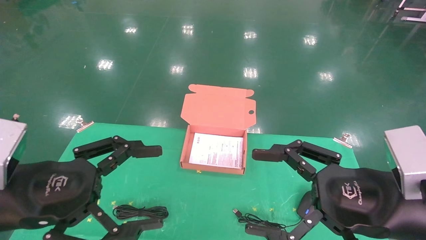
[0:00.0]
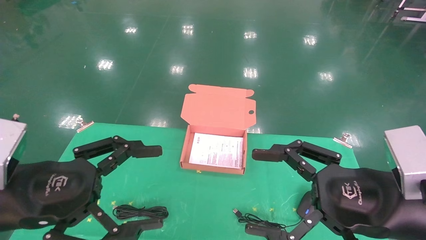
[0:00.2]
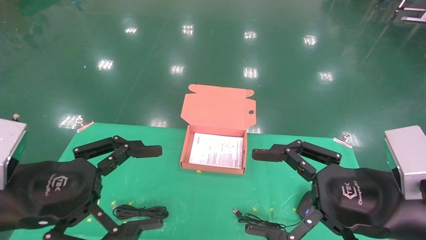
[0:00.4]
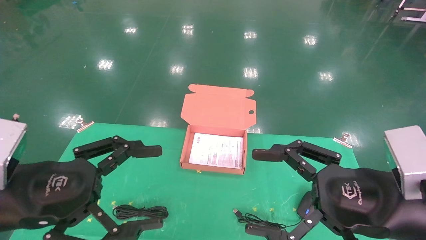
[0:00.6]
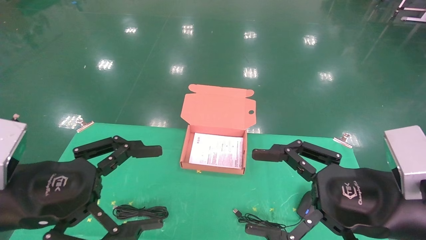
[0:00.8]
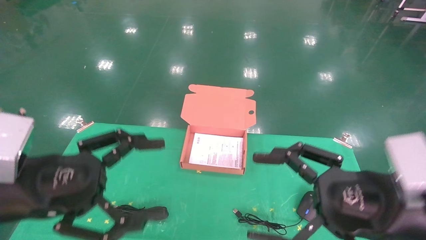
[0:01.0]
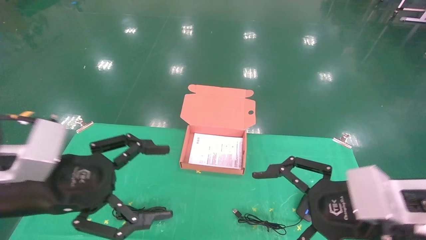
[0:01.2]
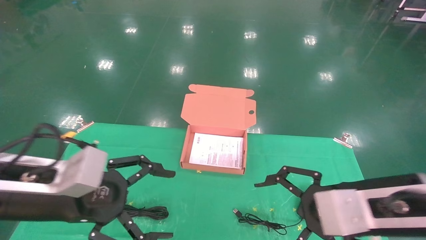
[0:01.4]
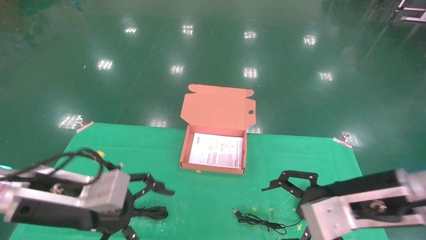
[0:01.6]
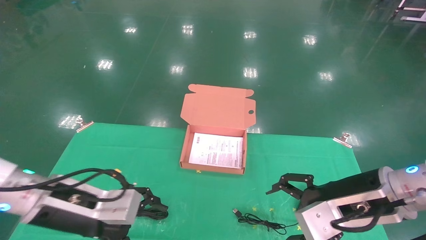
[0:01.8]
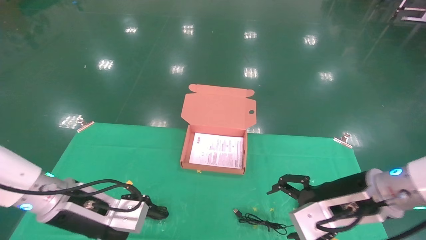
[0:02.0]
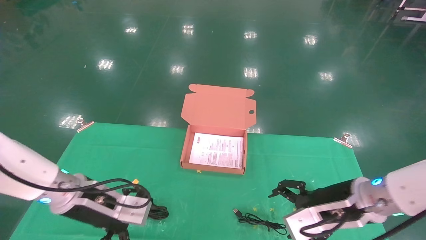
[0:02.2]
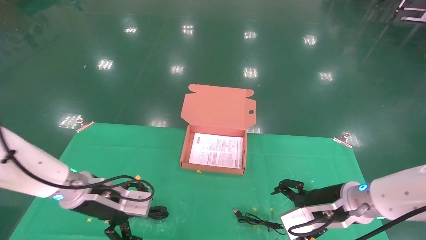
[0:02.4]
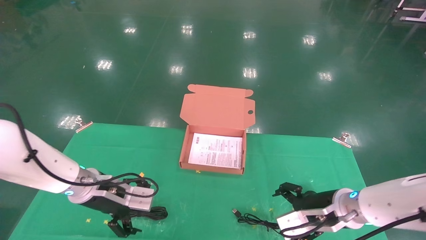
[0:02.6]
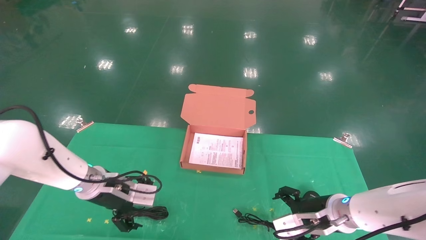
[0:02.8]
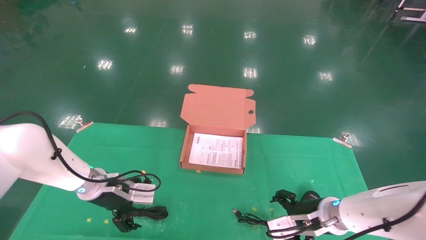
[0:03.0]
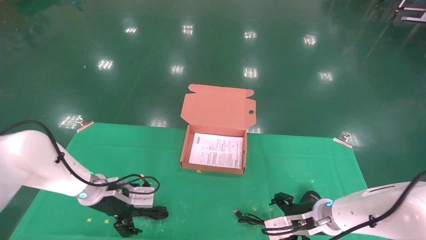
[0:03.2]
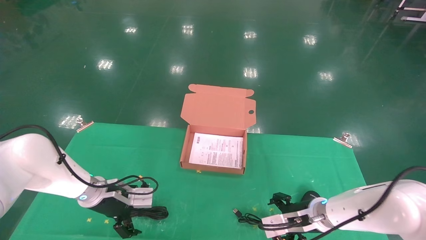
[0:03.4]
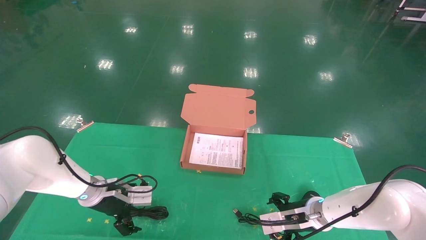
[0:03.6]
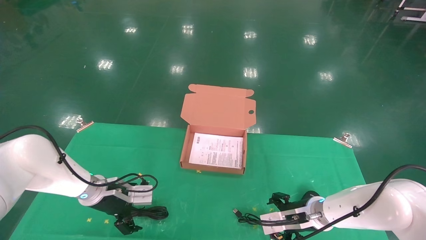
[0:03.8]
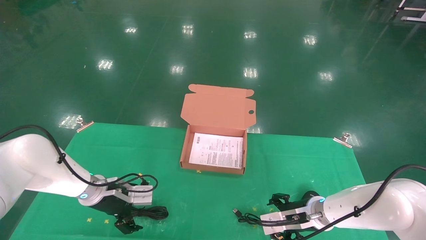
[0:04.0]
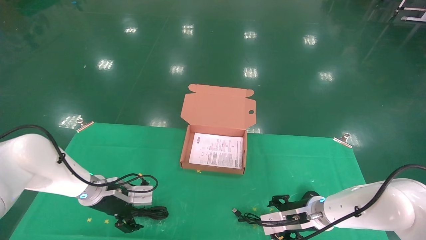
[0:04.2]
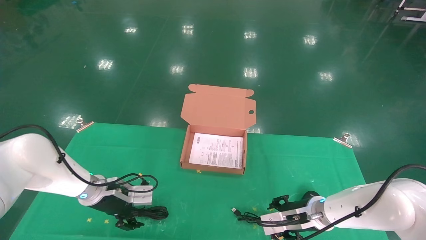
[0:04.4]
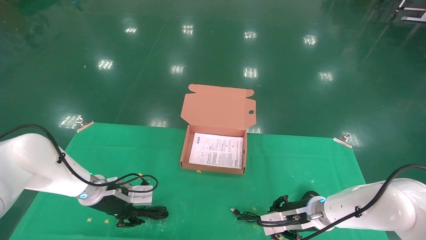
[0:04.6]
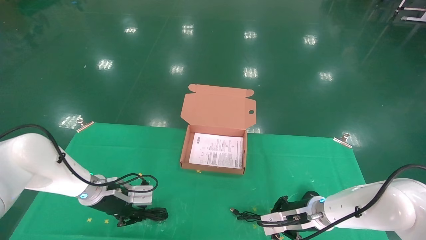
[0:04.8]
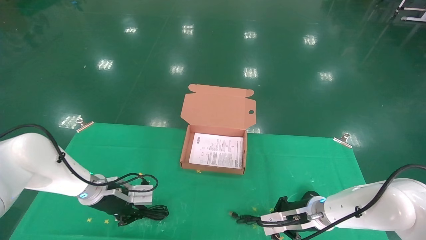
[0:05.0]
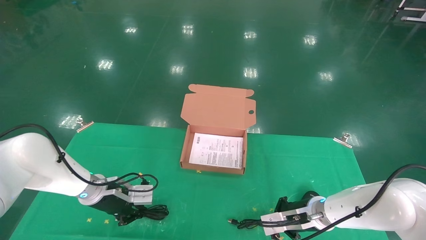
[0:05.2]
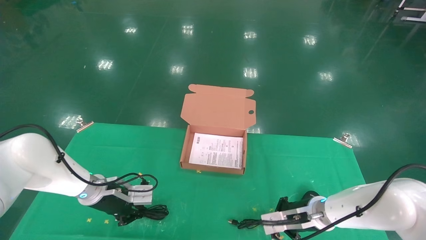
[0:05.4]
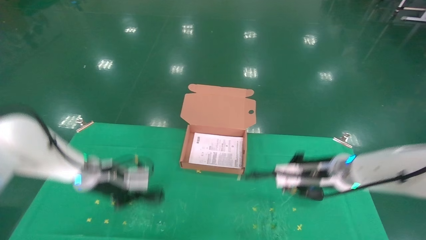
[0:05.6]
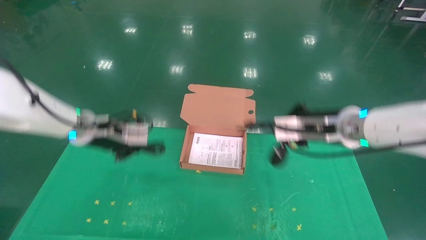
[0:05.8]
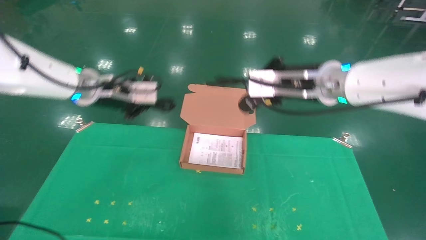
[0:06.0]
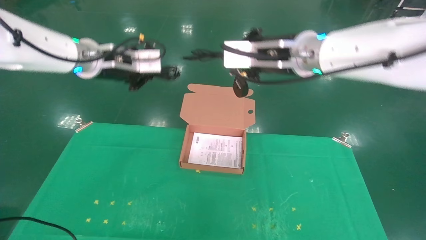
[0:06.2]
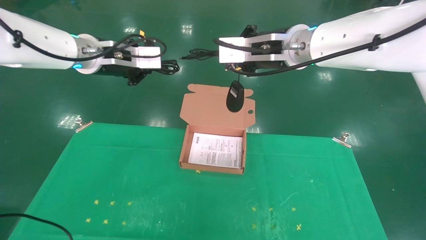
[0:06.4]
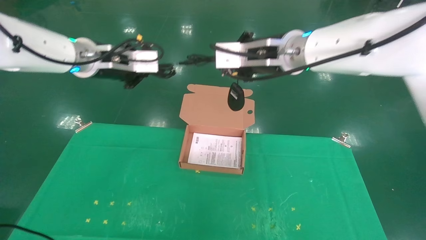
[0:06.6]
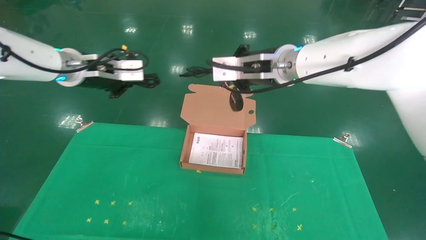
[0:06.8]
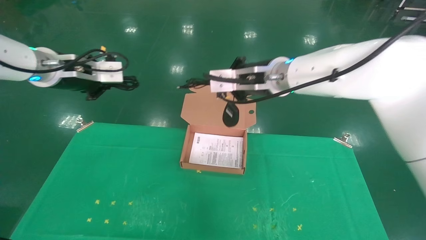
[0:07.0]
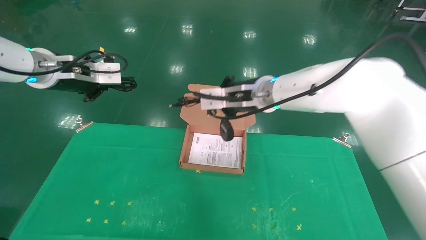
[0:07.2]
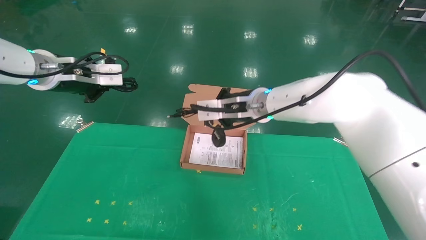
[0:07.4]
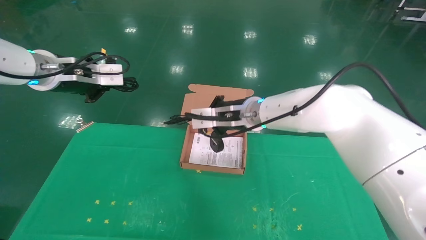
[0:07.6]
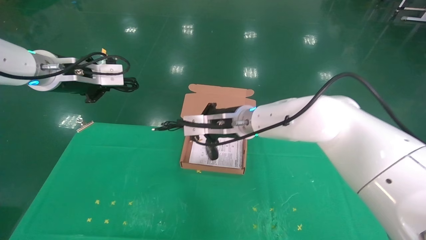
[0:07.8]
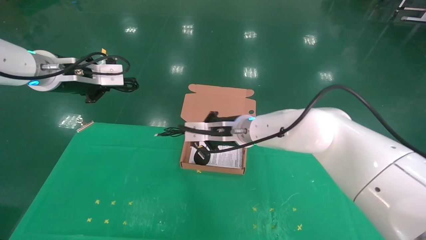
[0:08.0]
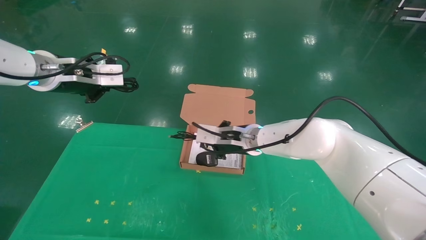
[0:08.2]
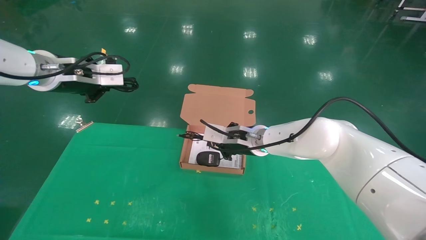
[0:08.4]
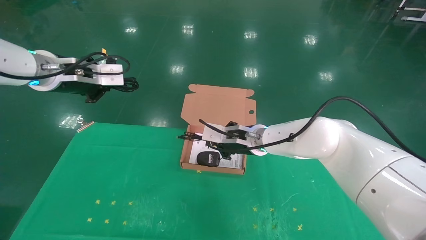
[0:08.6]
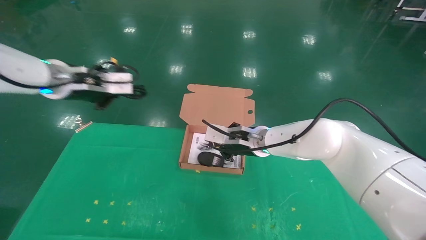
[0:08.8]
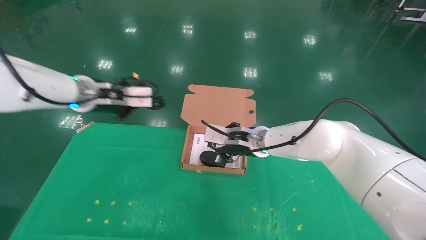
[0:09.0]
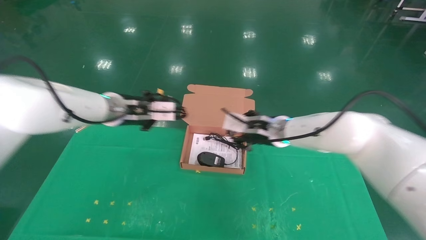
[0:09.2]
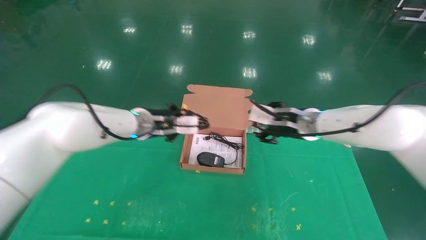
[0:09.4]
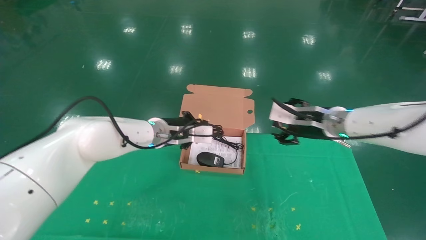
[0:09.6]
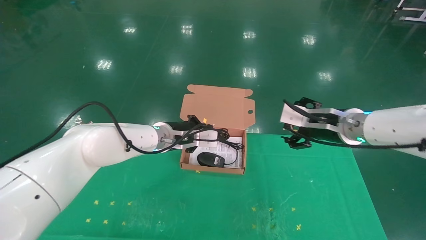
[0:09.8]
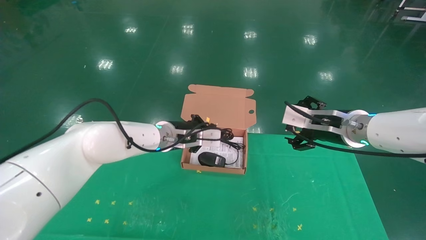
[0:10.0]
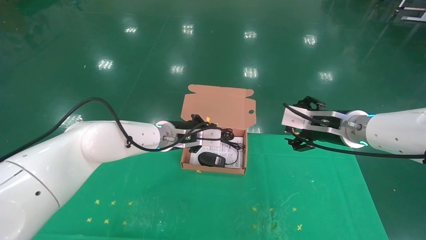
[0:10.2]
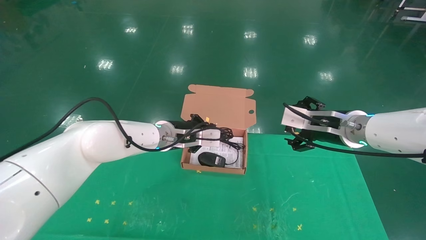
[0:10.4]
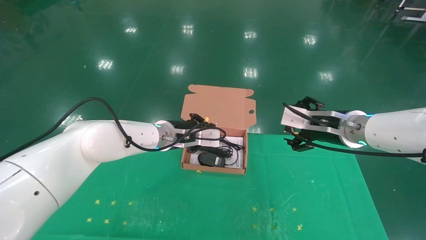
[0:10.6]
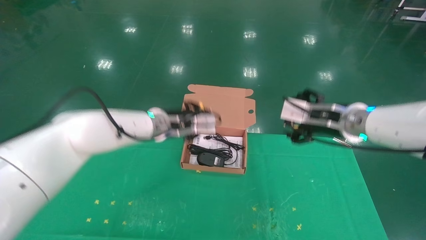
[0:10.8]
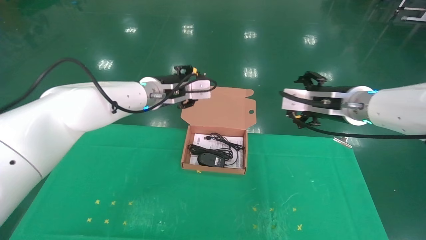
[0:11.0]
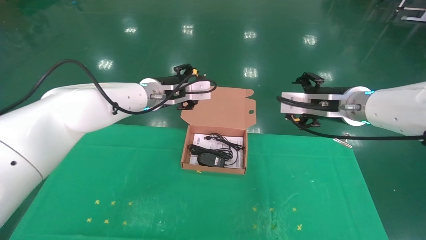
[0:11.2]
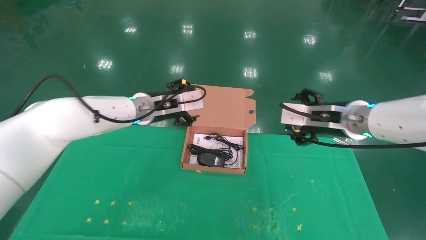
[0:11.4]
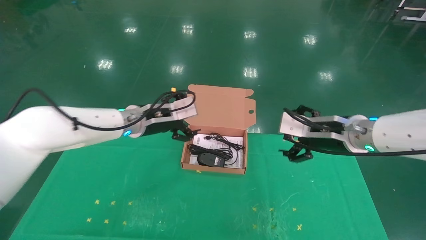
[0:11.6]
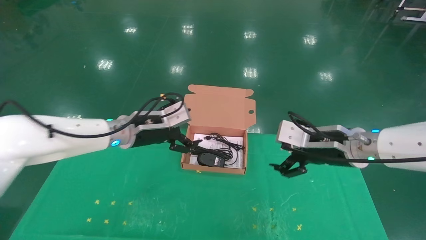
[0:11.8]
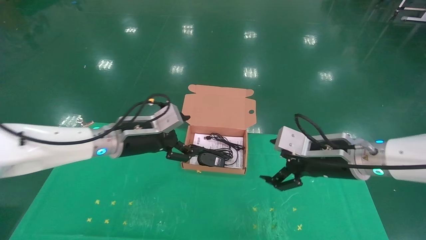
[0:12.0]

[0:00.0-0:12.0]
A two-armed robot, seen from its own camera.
Task of the whole recording: grasp data cable left put into box grasp mouse right put into box.
Step, 0:01.2 to 0:05.2: Grab and pick up both the mouse and power cord from the accessory packaging area at the same time.
Step, 0:05.4 to 0:11.4: Place the mouse and power cord into the box.
0:00.0 to 0:01.6: Both grippers travel together forward, approximately 5 cm.
0:01.6 to 0:03.0: The left gripper shifts roughly 20 cm forward and downward; the right gripper shifts some 20 cm downward and forward.
0:03.0 to 0:04.4: The right gripper closes.
0:04.4 to 0:06.0: Both grippers move upward, about 25 cm. The left gripper closes up. Meanwhile the right gripper closes up.
0:06.0 to 0:07.6: The left gripper moves to the left, some 5 cm; the right gripper heads to the left, downward and forward, covering some 15 cm.
0:07.6 to 0:09.0: Both grippers travel together to the right and downward, roughly 10 cm.
0:09.0 to 0:10.4: The right gripper travels to the right and backward by approximately 15 cm, and opens; the left gripper moves to the right and downward, approximately 15 cm.
0:10.4 to 0:12.0: The right gripper shifts some 5 cm backward. Meanwhile the left gripper goes approximately 10 cm to the left and backward, and opens up.
